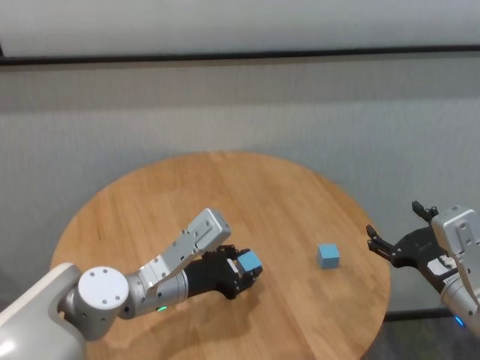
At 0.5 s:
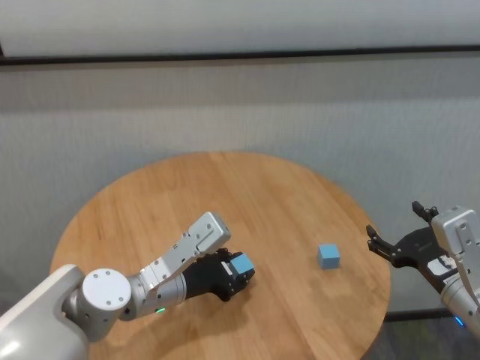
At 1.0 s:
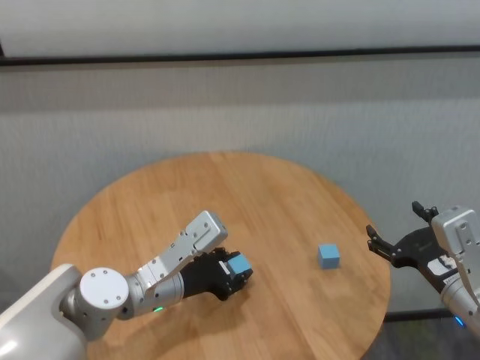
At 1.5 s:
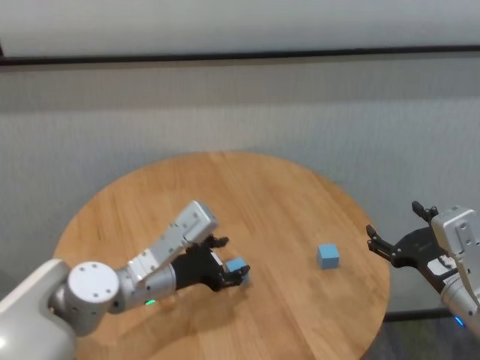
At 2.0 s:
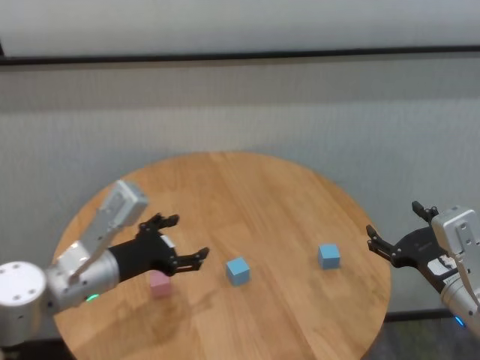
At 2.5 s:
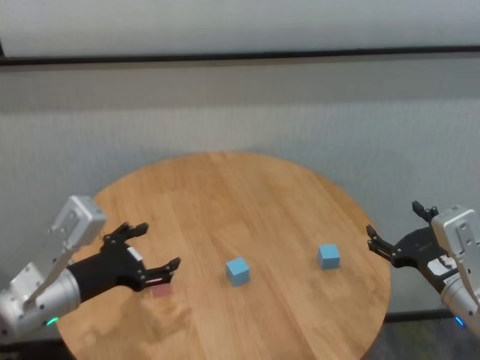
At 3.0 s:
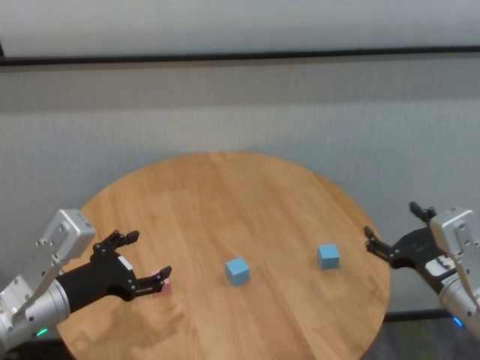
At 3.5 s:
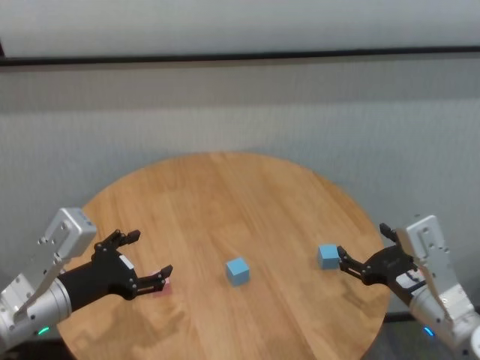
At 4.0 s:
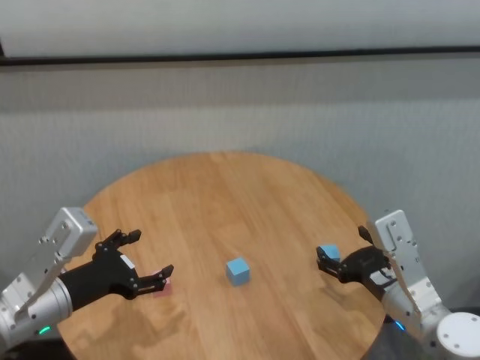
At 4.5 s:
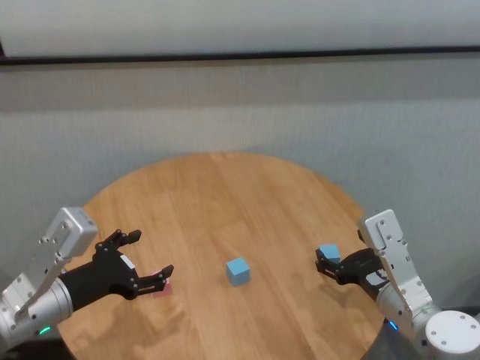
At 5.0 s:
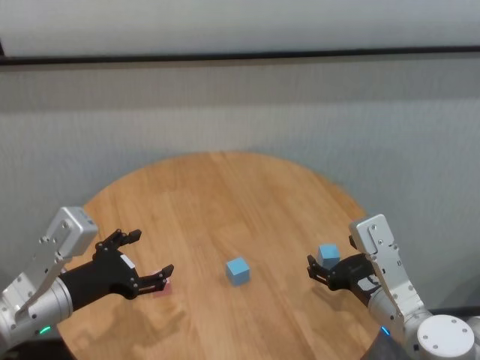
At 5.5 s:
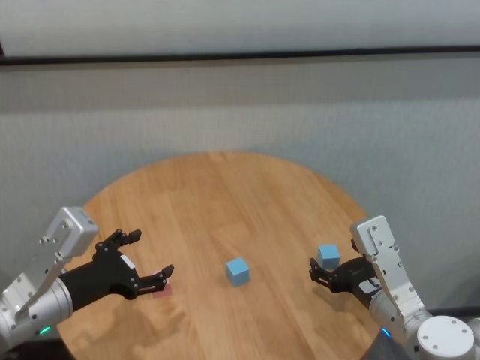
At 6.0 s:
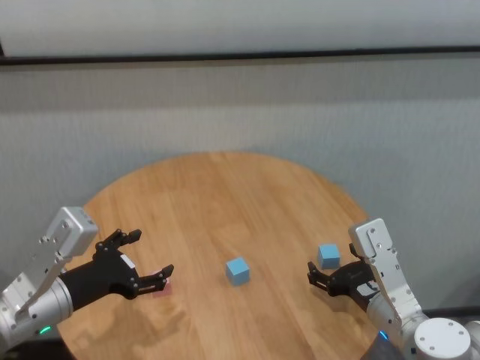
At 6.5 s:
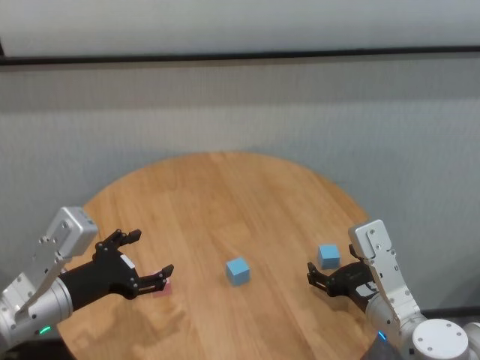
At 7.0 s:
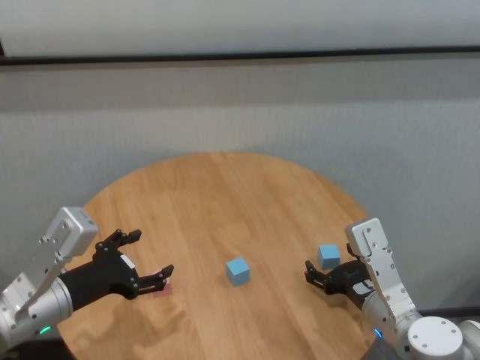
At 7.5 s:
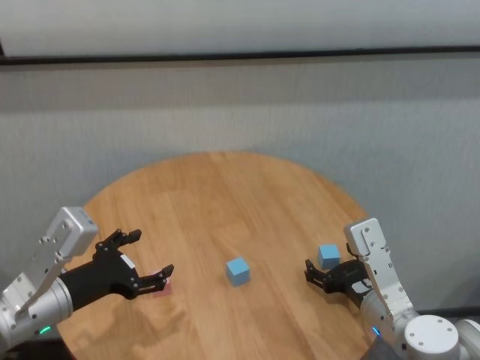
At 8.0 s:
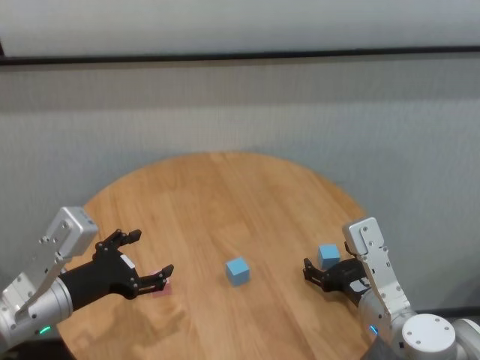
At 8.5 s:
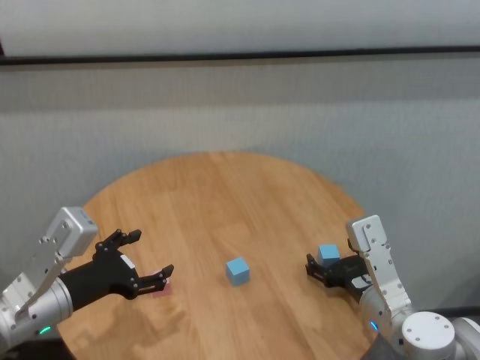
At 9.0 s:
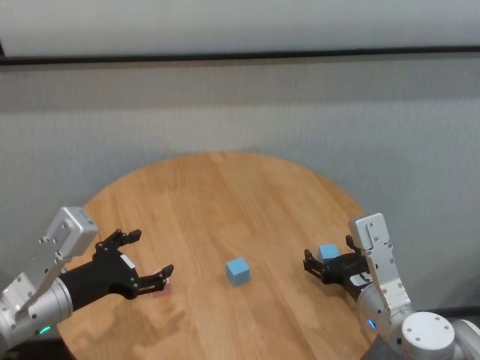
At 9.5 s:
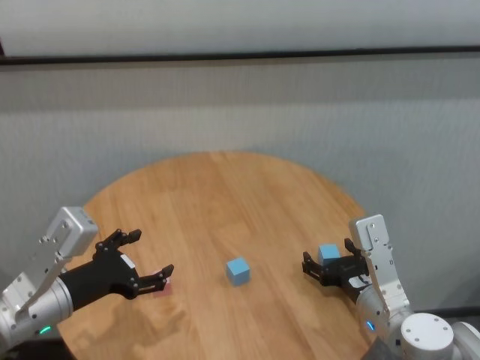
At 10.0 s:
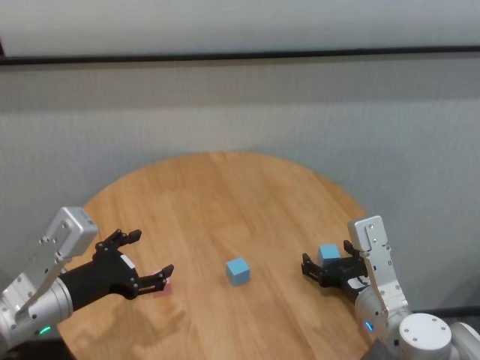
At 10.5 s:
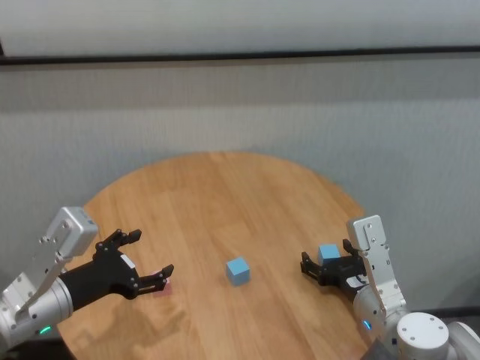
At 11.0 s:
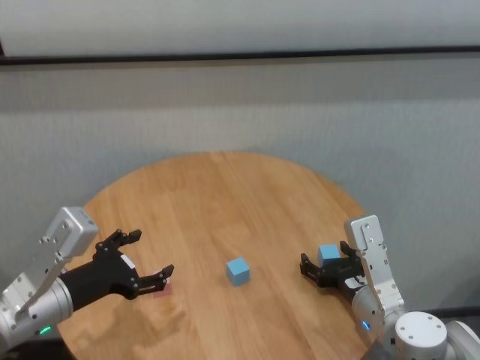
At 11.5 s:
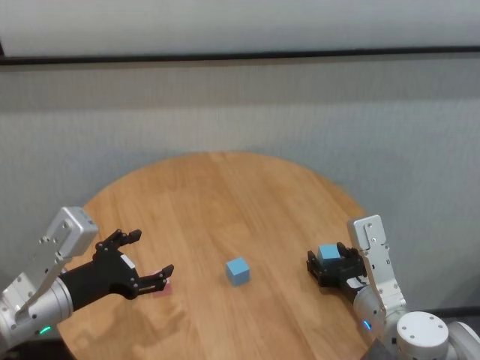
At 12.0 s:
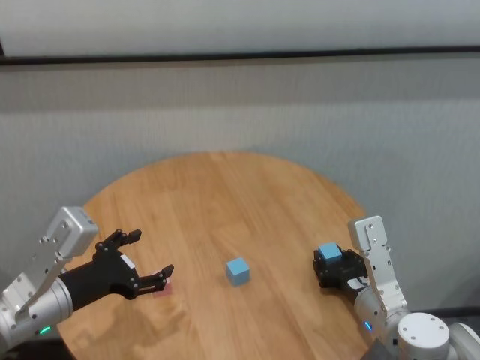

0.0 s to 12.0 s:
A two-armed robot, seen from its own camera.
Task of the whole recording: stack building blocks on the table.
Step, 1.5 to 11.5 s: Grasp the blue building block with right gripper.

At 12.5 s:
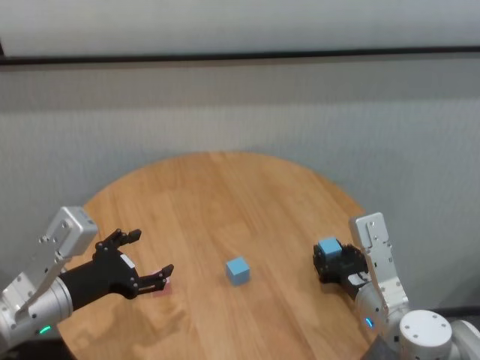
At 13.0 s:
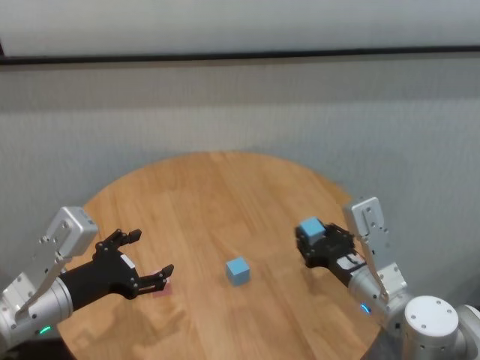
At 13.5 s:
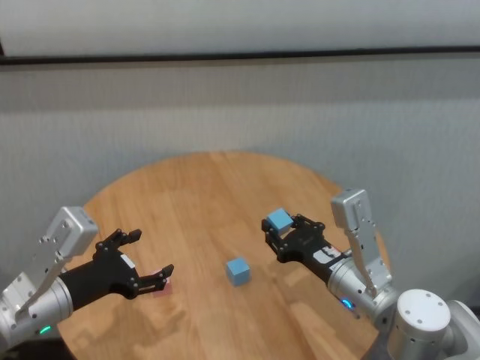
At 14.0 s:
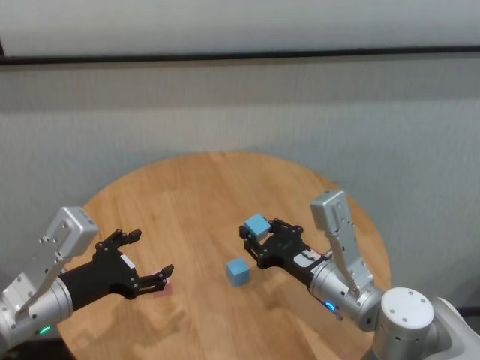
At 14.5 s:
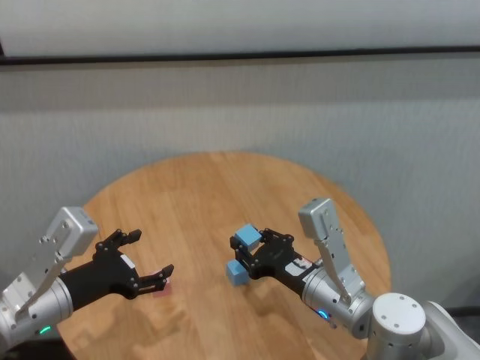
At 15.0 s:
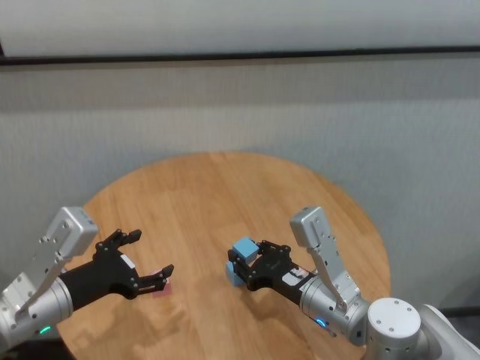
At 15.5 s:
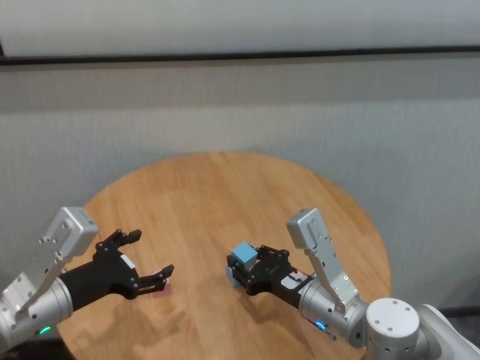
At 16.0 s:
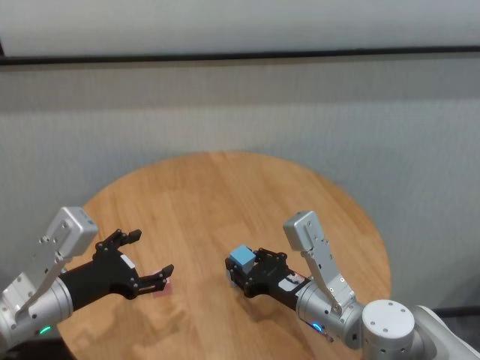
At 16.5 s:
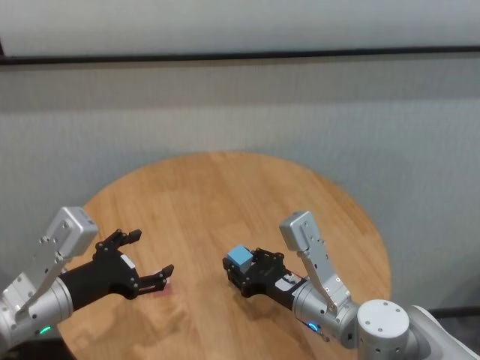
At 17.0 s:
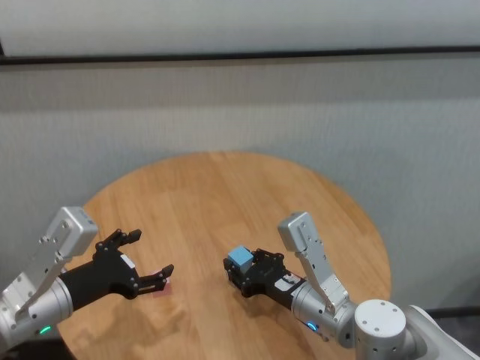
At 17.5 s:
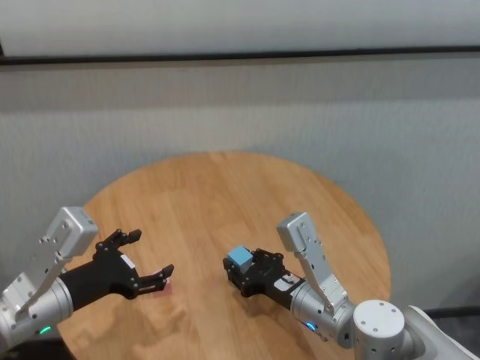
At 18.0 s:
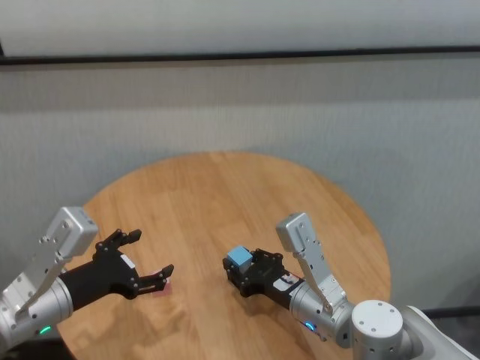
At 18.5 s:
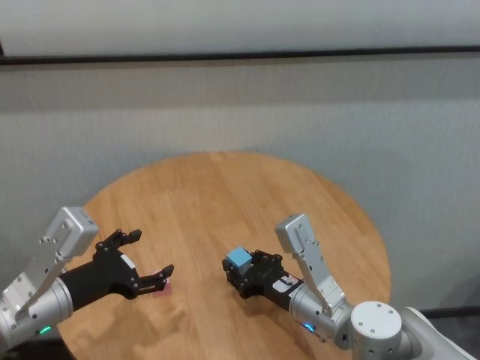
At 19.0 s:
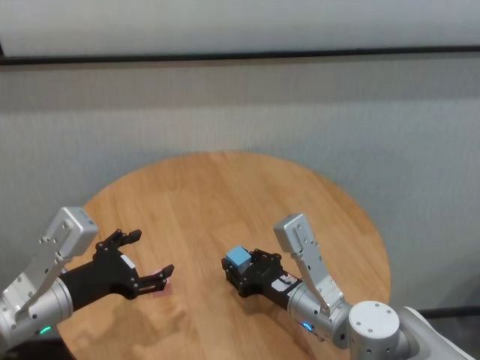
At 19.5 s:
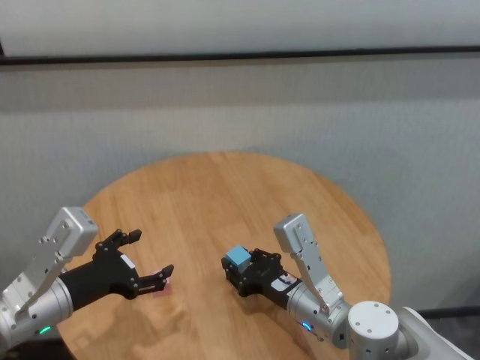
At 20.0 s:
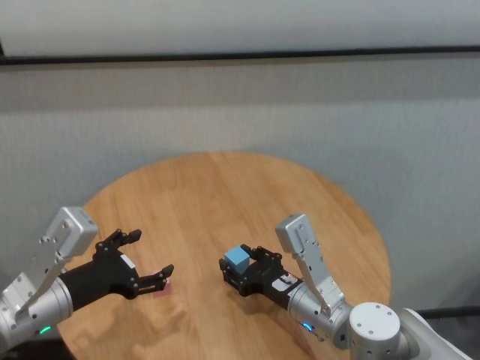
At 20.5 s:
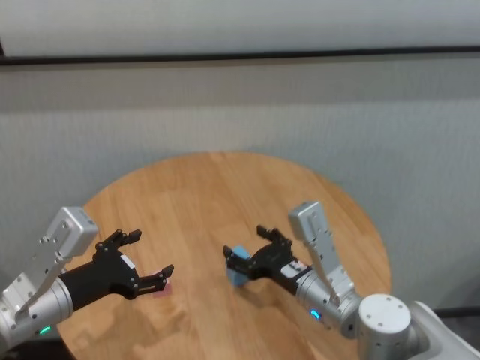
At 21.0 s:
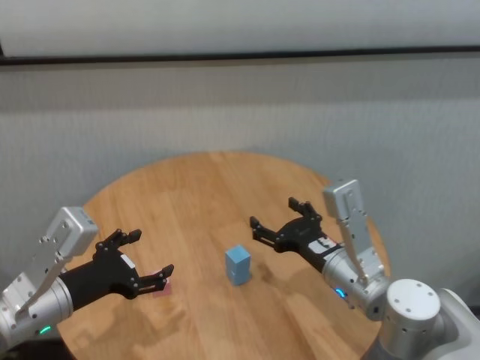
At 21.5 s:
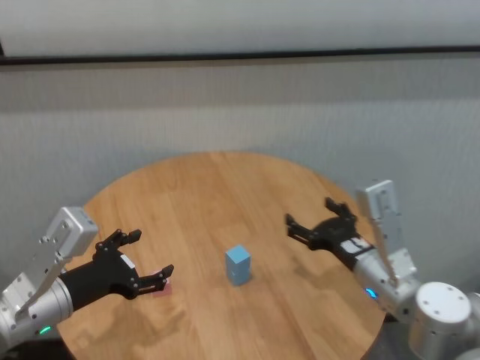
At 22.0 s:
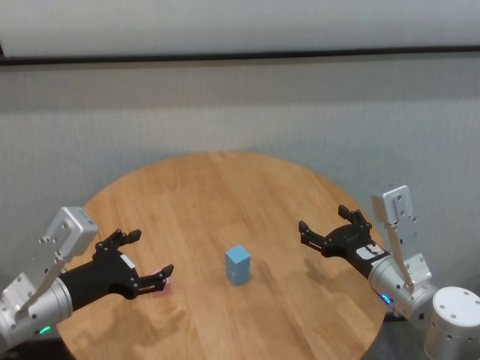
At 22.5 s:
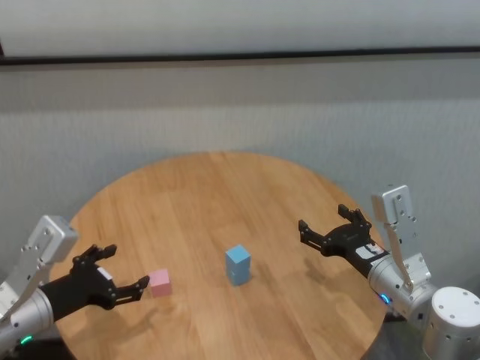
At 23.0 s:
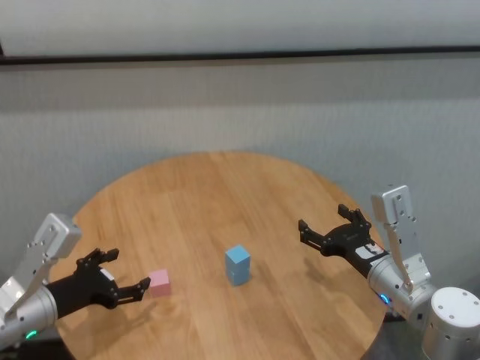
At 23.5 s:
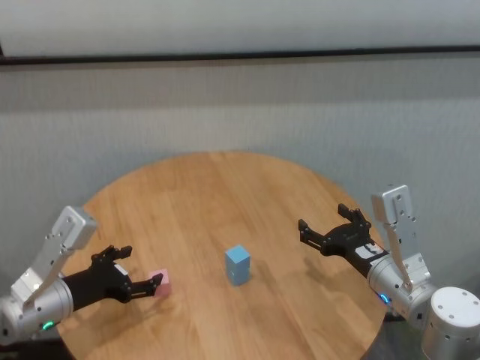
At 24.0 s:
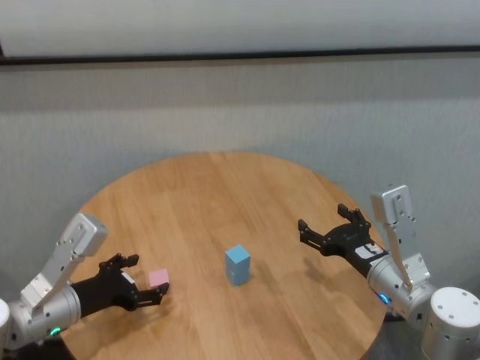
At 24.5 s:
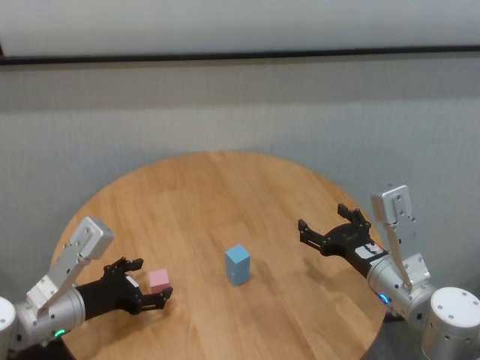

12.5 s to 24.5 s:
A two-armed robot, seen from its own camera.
Task of the whole recording: stack building blocks on the table.
Step, 12.5 to 20.0 s: Place the blue building block on the blue building blocks with right gripper.
